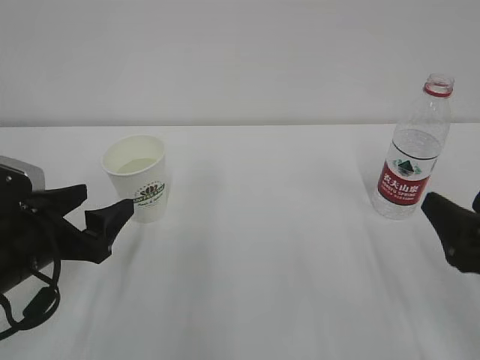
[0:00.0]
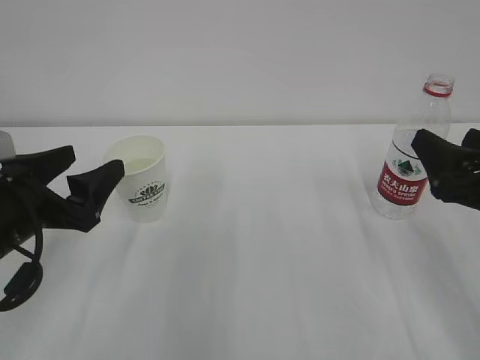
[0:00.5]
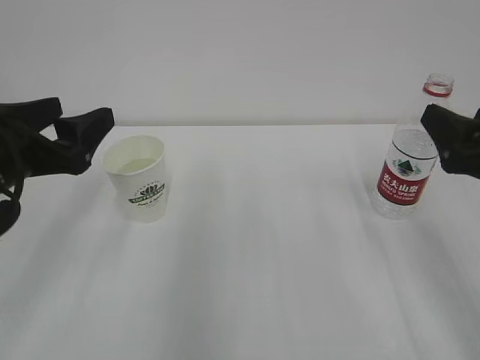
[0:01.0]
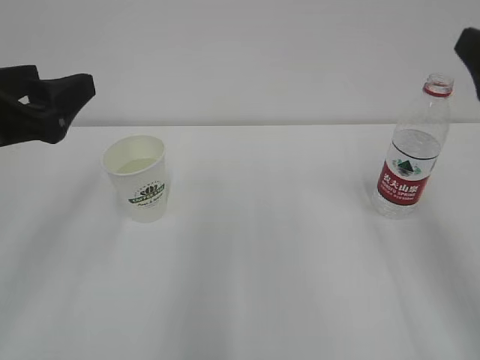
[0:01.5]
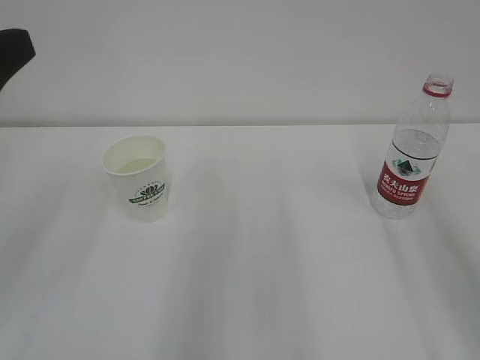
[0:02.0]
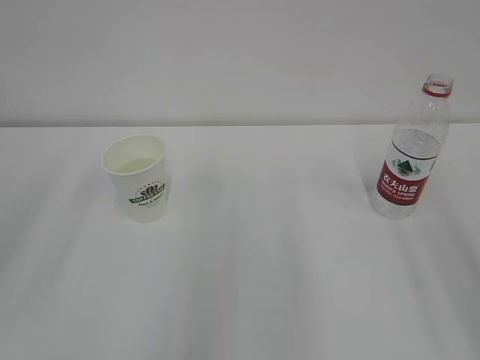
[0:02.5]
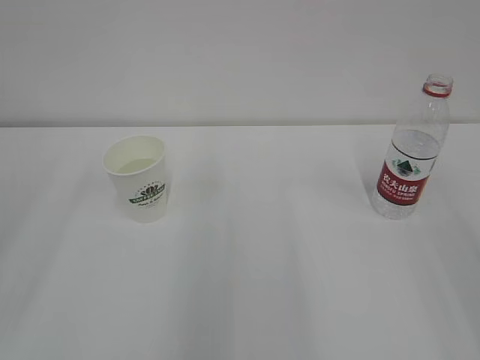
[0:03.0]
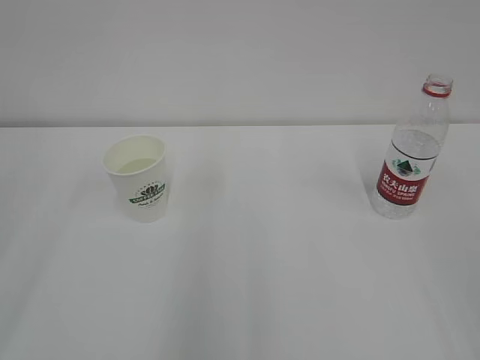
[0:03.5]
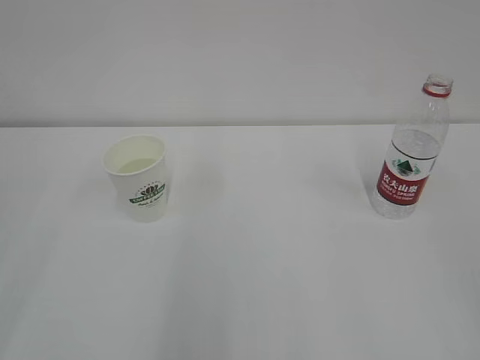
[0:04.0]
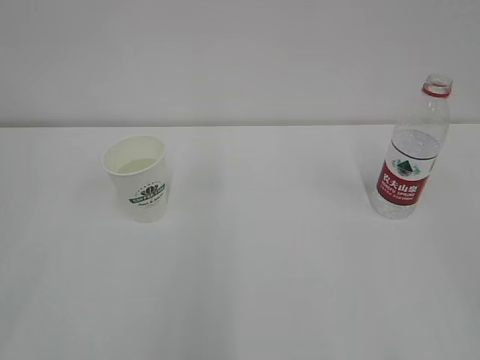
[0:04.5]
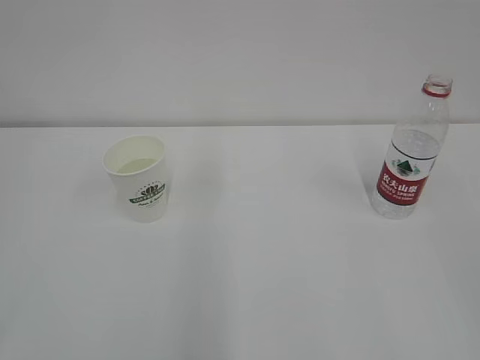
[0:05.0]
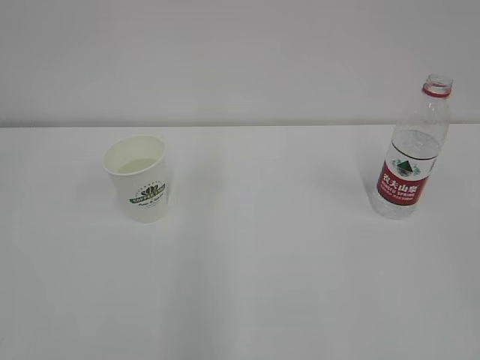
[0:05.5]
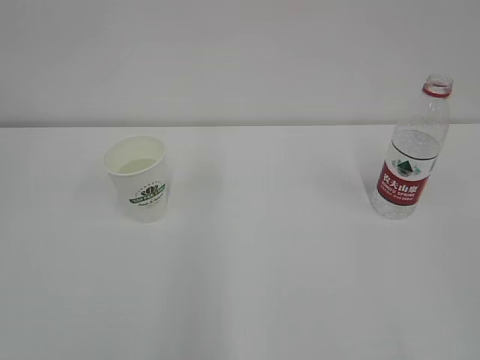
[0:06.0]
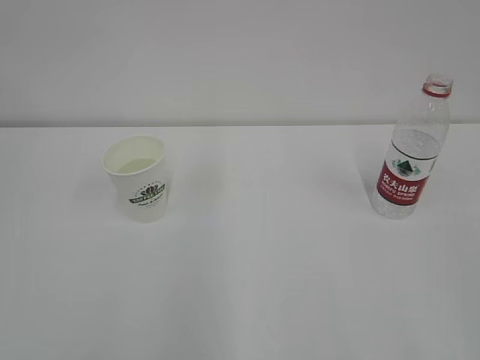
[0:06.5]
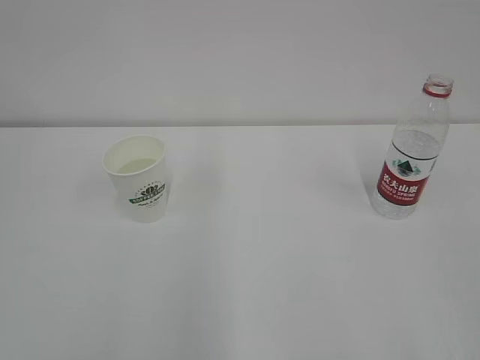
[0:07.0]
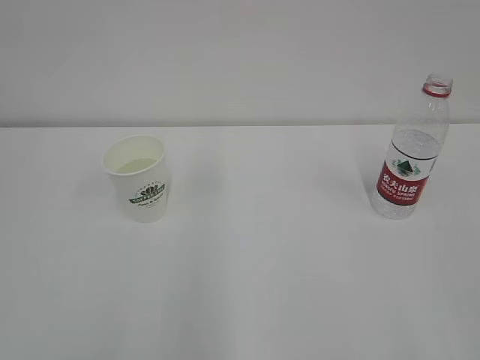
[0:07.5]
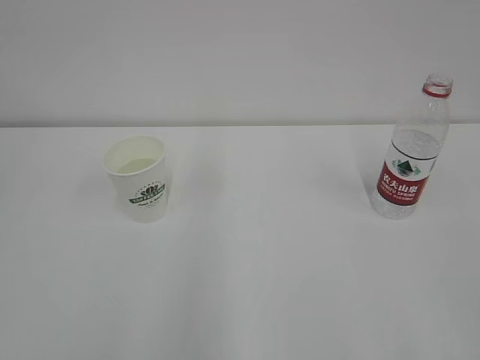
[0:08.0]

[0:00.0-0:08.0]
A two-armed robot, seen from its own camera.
0:00.0 to 0:02.0: The grippers both shift upward by some 20 cm.
0:02.0 to 0:04.0: The left gripper moves backward, roughly 15 cm.
